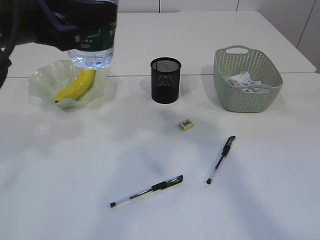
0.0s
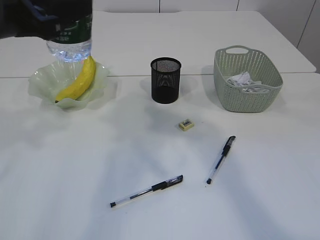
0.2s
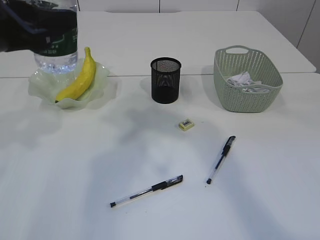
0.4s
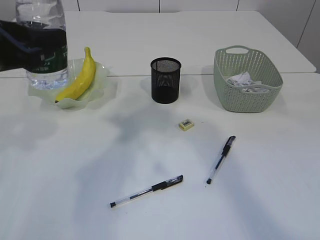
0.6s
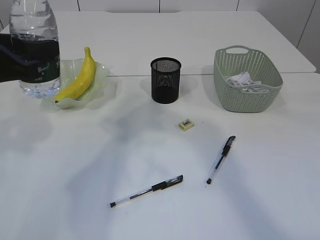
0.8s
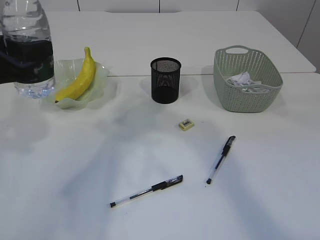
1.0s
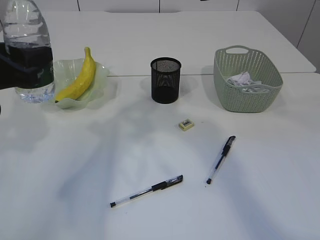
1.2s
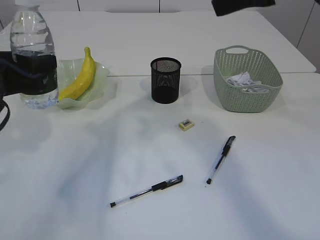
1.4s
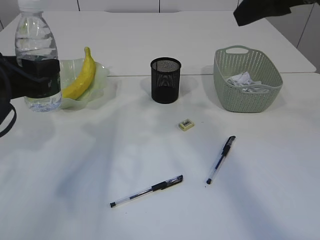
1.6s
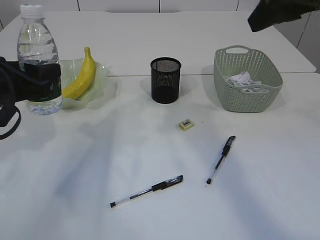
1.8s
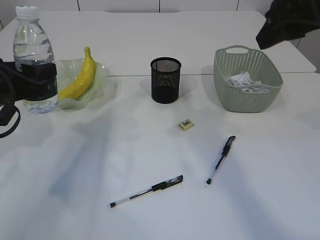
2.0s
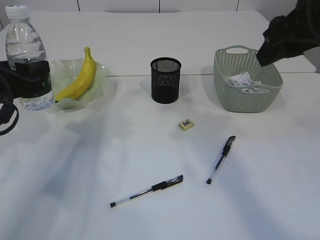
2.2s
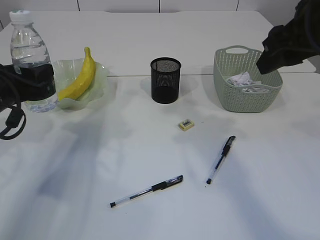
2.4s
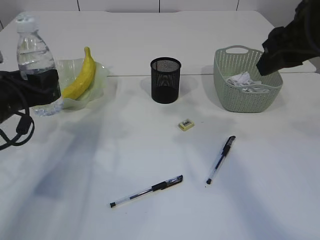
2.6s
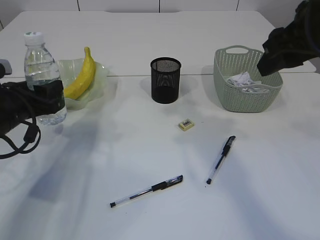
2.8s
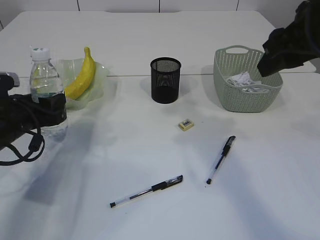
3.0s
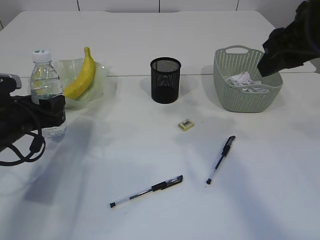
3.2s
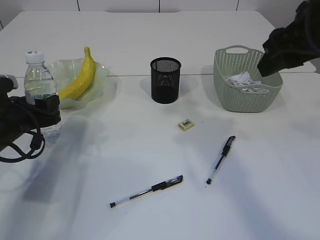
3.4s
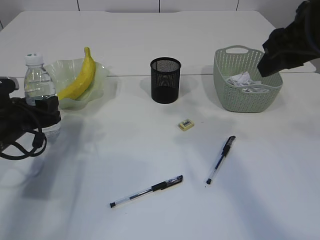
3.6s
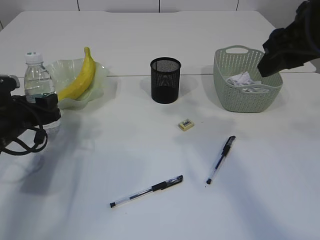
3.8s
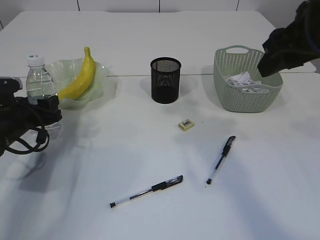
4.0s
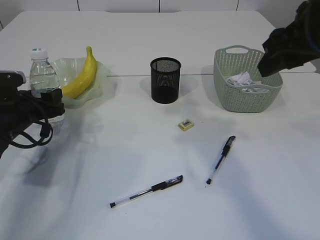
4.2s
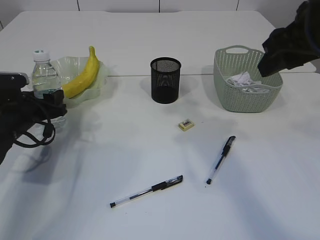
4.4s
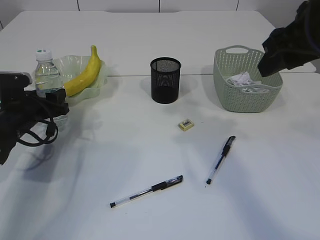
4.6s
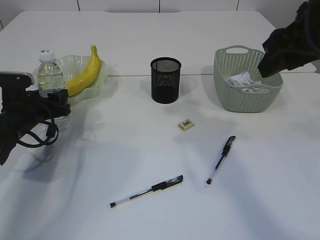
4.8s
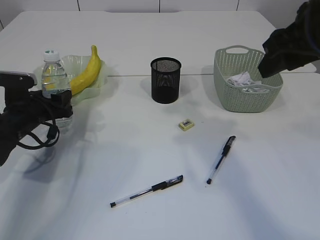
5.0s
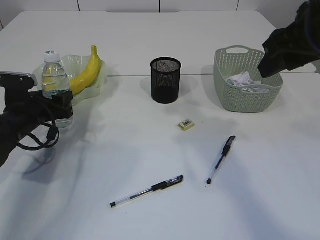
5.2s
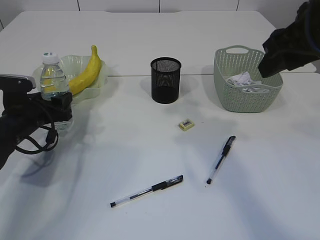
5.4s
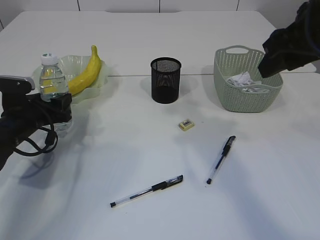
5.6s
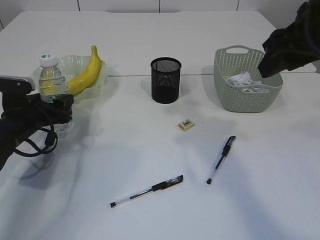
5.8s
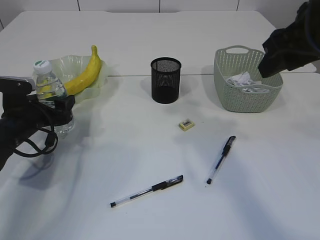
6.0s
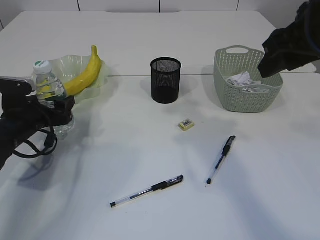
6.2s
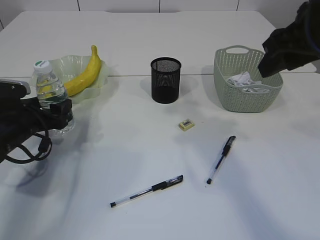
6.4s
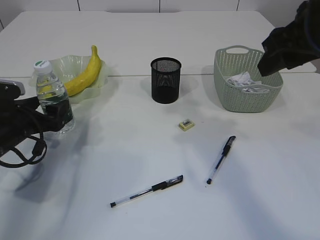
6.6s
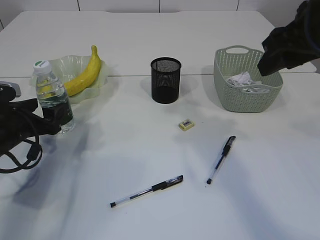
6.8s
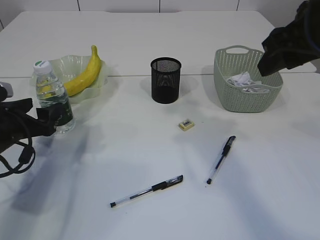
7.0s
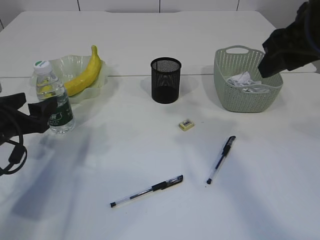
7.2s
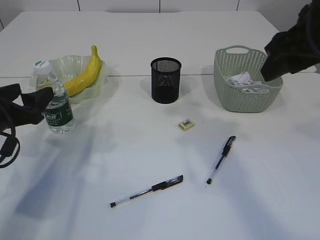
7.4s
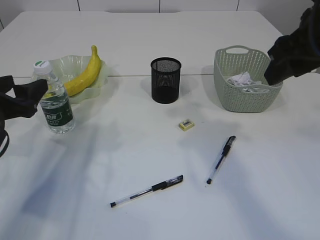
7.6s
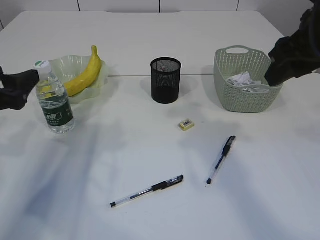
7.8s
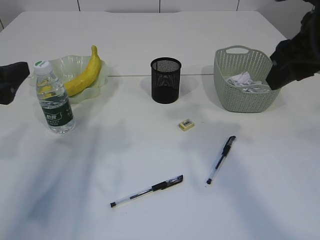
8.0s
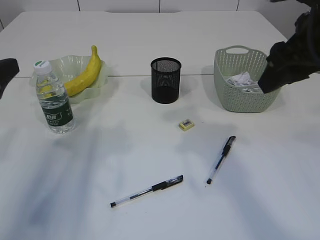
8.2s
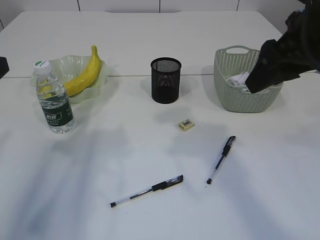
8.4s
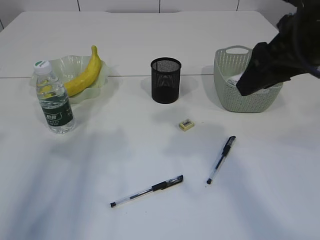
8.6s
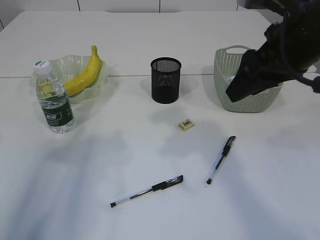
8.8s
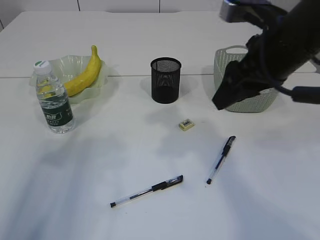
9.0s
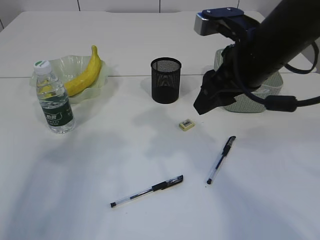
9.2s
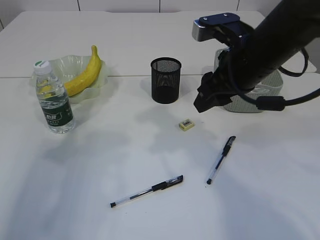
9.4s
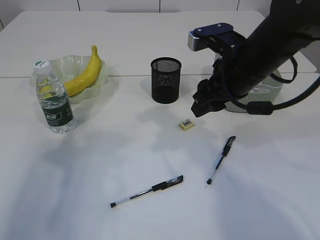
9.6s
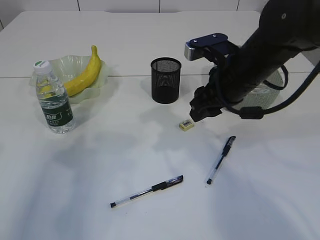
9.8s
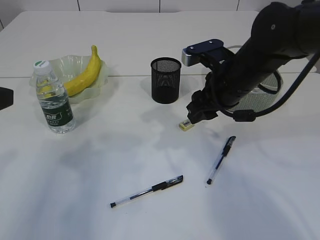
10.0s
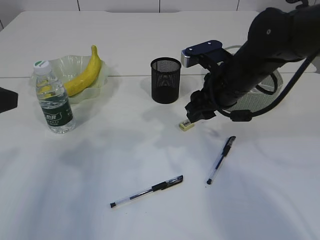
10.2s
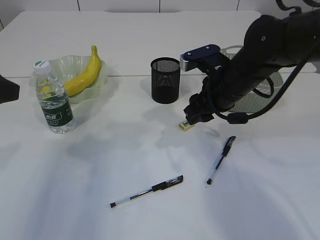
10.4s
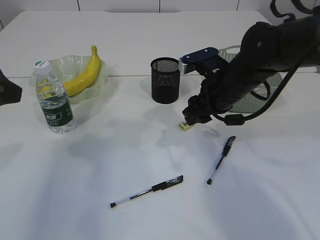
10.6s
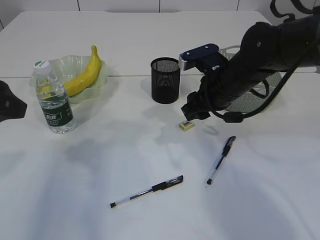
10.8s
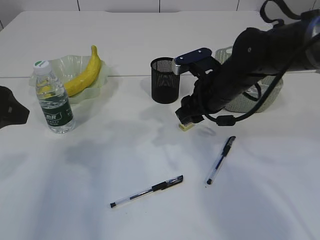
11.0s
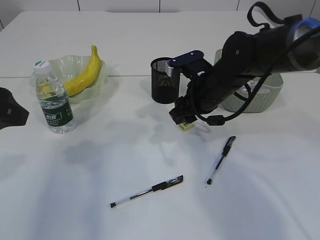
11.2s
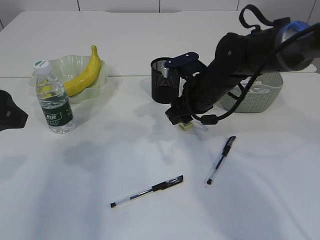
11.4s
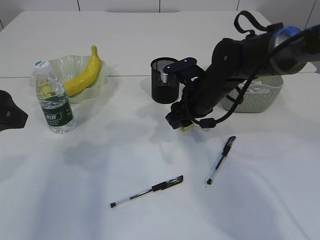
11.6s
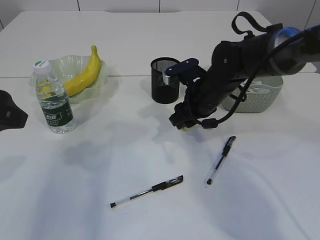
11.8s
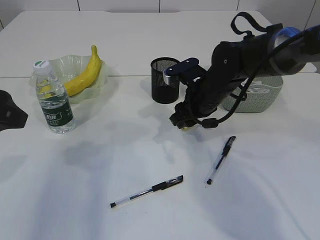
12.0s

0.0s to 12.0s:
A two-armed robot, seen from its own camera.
Step, 0.0s to 7.4s: Place the bottle.
0.0s to 1.6s: The left gripper travels downward and to the left by roughly 10 cm, while the right gripper moves some 5 cm.
1.6s to 3.0s: The left gripper heads downward, covering approximately 10 cm, while the right gripper heads downward, covering roughly 5 cm.
3.0s to 4.4s: The left gripper travels forward by roughly 5 cm.
4.4s to 6.0s: The left gripper opens its fingers.
6.0s to 7.6s: The left gripper goes roughly 15 cm upward and backward.
7.6s to 9.0s: The right gripper changes place by some 5 cm, while the left gripper goes approximately 15 cm upward and backward.
9.0s to 10.4s: The right gripper heads downward and forward, covering about 10 cm.
10.4s to 12.0s: The right gripper moves approximately 5 cm.

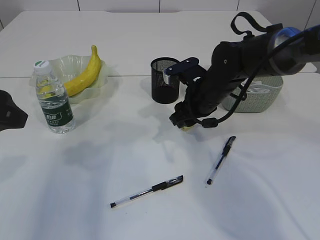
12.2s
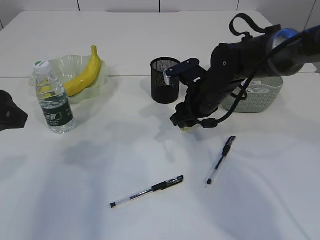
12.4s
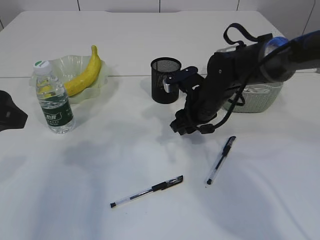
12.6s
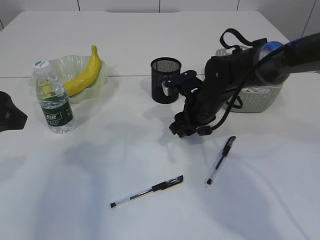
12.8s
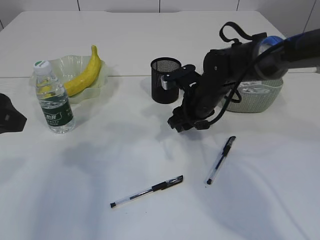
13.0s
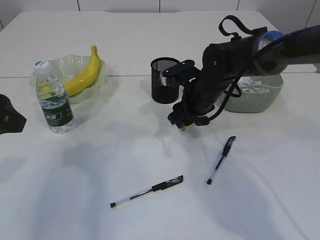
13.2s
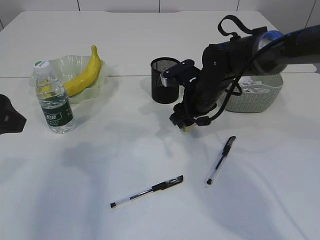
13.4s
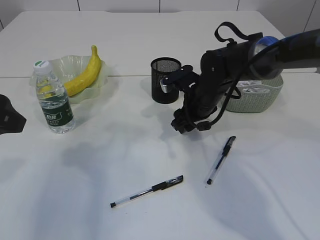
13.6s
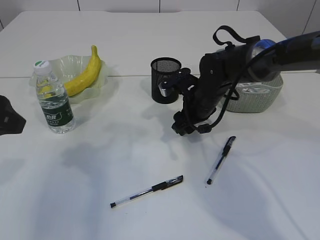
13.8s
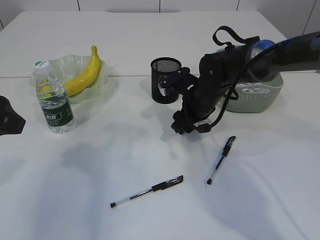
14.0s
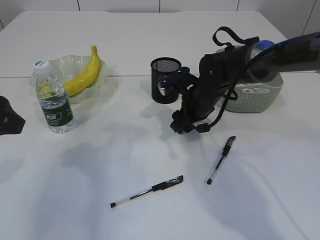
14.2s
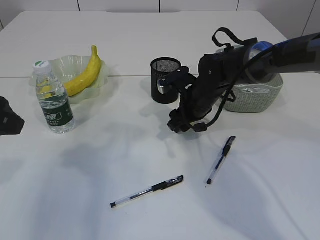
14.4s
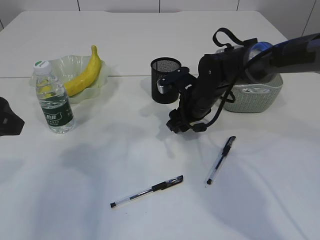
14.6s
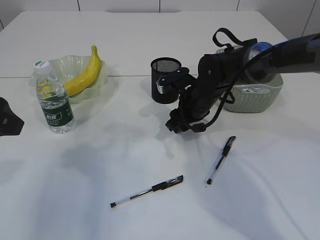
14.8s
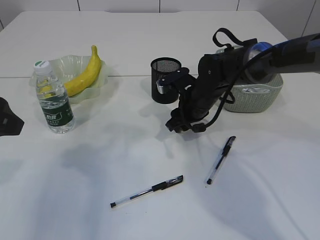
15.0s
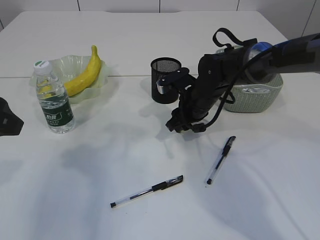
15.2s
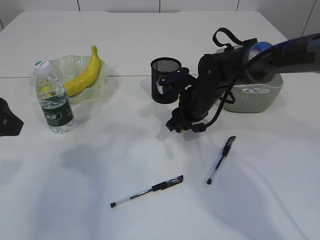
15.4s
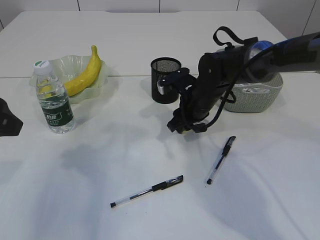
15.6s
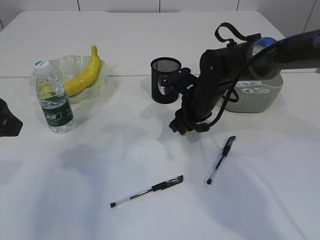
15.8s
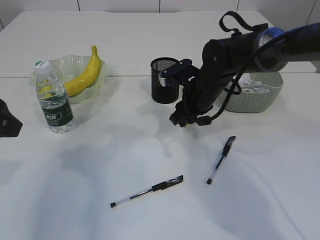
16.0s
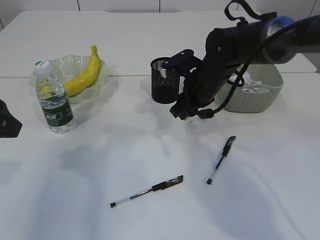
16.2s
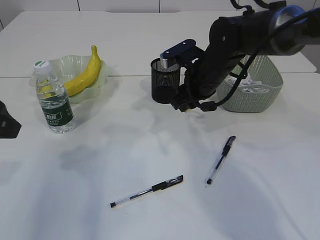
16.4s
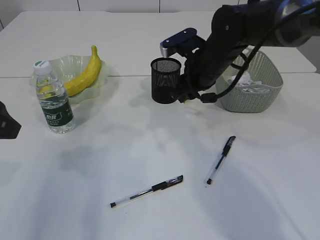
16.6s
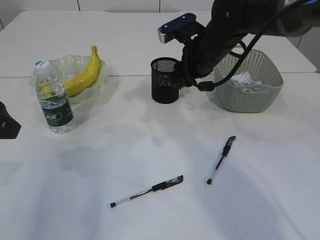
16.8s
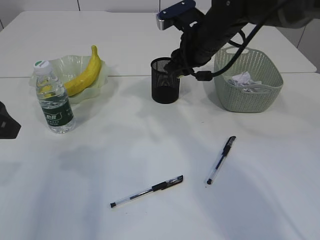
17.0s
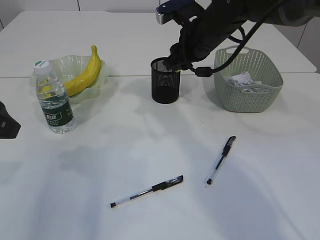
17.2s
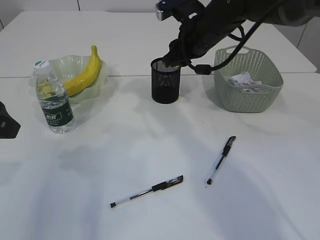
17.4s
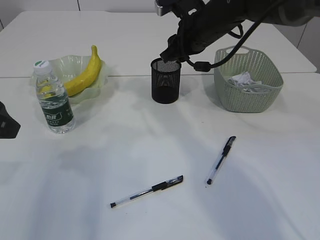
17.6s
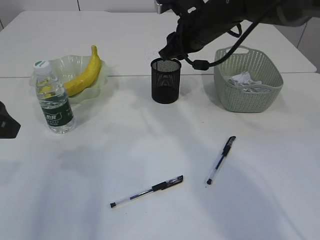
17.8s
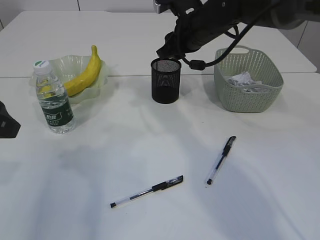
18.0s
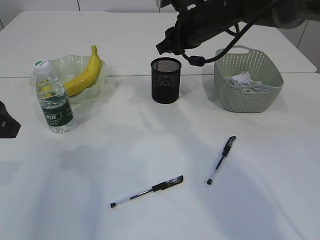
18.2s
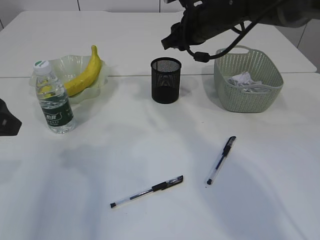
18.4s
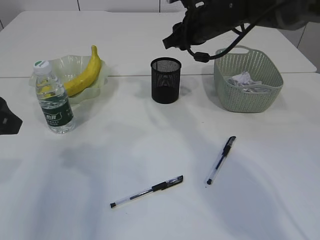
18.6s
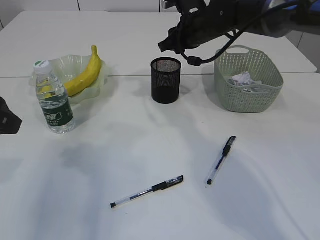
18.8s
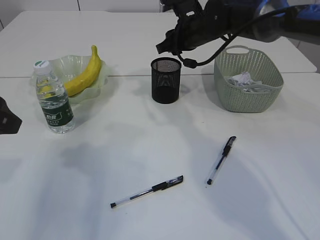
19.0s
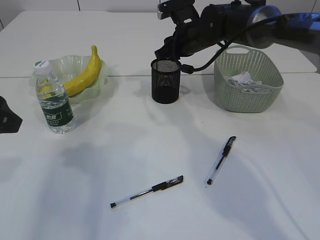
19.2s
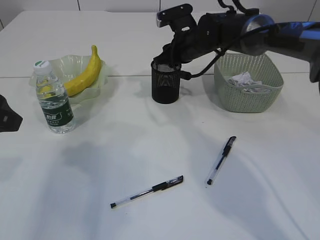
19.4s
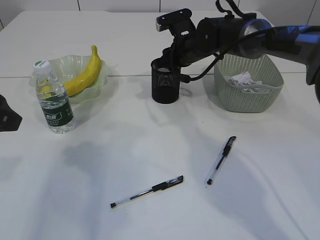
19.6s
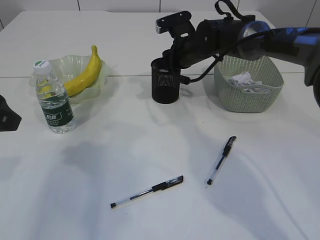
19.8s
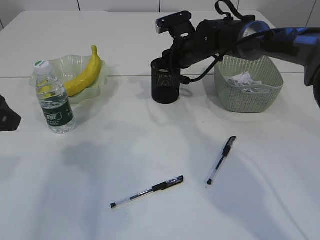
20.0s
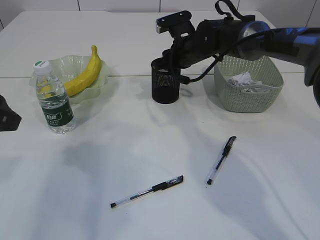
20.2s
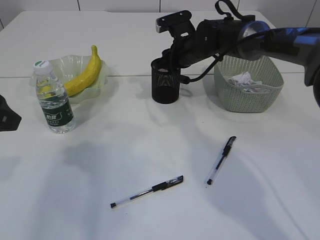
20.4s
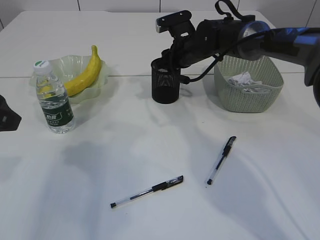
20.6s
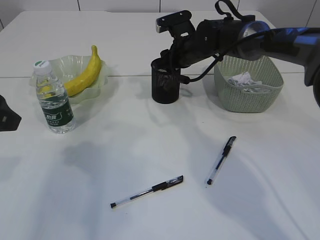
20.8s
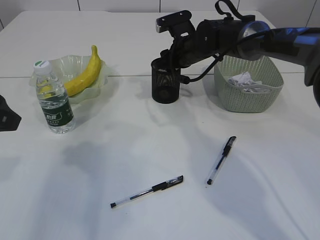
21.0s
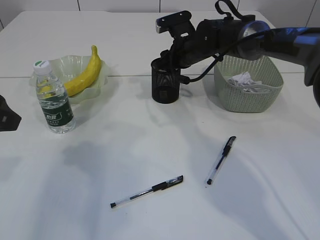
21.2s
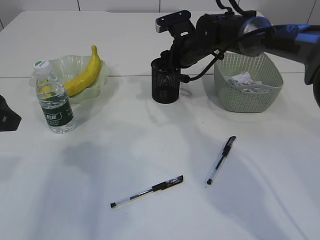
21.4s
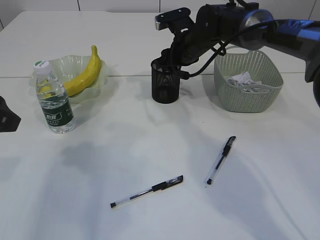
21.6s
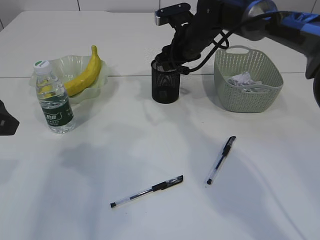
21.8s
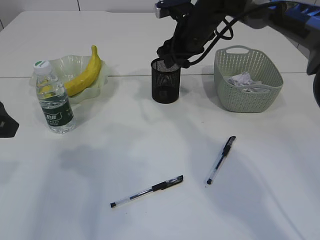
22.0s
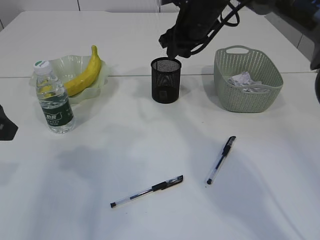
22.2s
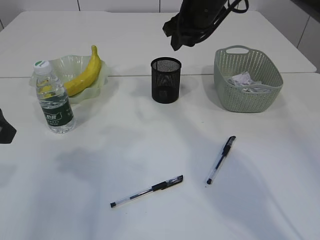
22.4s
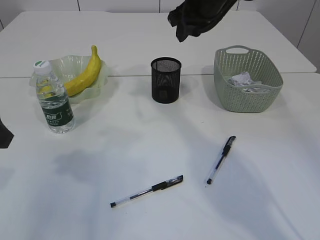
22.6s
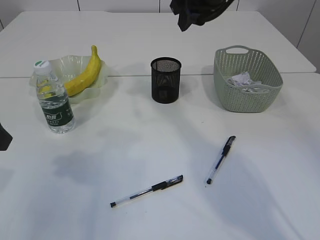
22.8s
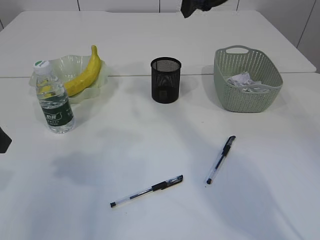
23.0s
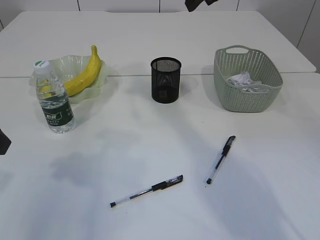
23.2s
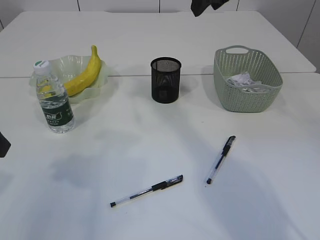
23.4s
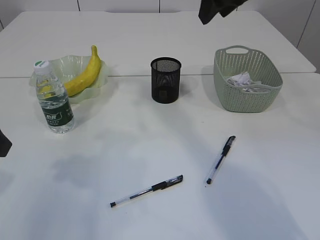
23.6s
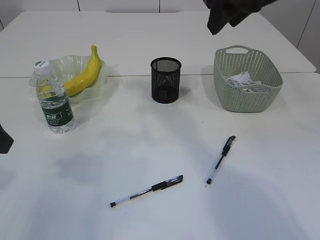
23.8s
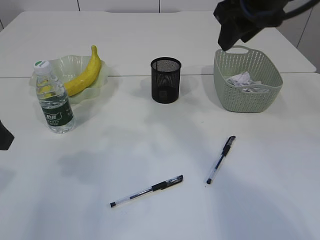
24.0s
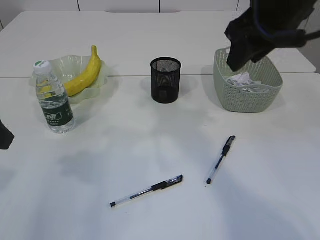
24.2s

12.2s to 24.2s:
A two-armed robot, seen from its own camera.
Step, 12.2s to 16.2s: Pick up the eraser.
Step, 16.4s to 22.2s: Place the eraser into the pen holder.
12.2s to 13.8s: There are only small adjustments of the grippers.
13.8s to 15.2s: The two grippers keep their place.
15.2s to 16.6s: The right gripper is displaced upward by some 10 cm.
16.6s to 18.2s: The right gripper goes approximately 5 cm upward.
18.2s to 19.8s: The right gripper is displaced downward and forward by about 10 cm.
19.8s to 21.2s: The two grippers keep their place.
21.2s to 22.6s: The right gripper travels upward by roughly 15 cm.
22.6s to 24.2s: The right gripper heads backward, covering about 15 cm.
